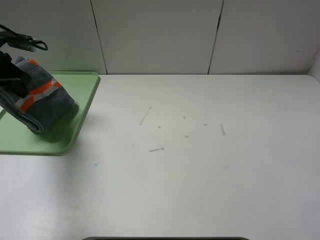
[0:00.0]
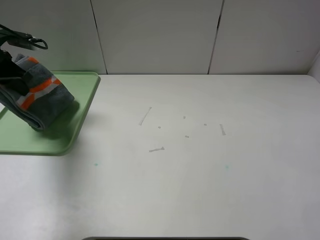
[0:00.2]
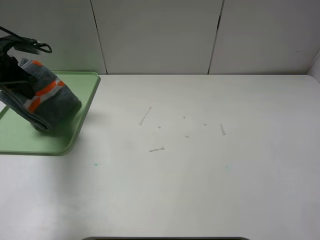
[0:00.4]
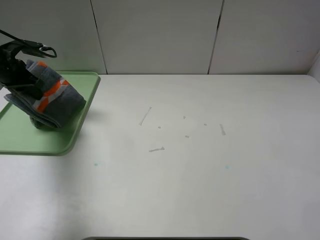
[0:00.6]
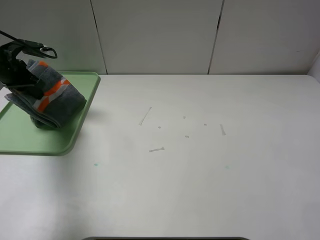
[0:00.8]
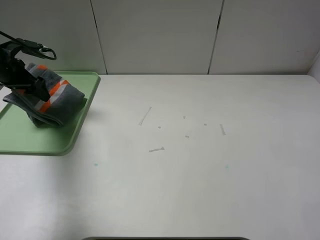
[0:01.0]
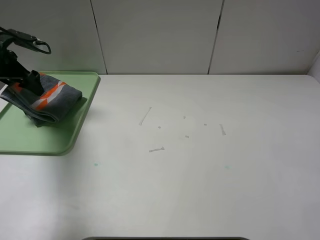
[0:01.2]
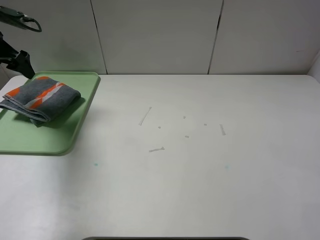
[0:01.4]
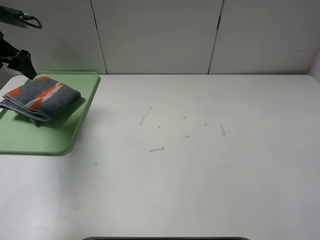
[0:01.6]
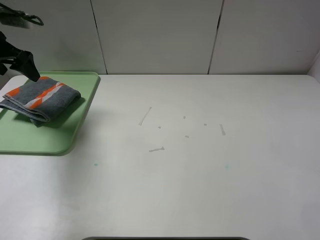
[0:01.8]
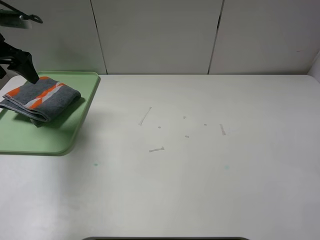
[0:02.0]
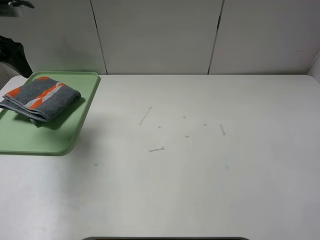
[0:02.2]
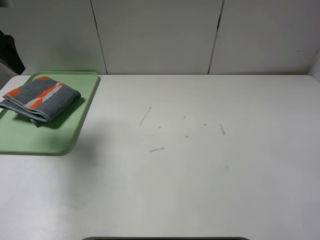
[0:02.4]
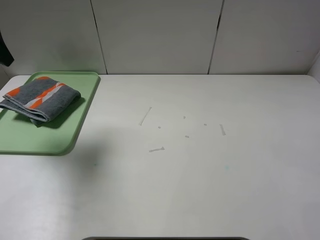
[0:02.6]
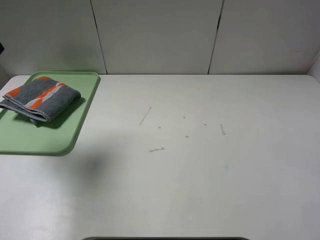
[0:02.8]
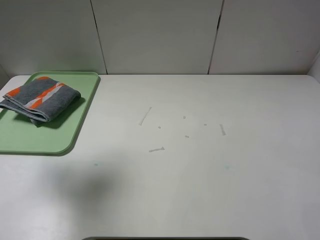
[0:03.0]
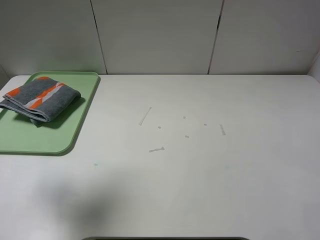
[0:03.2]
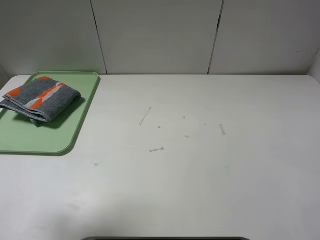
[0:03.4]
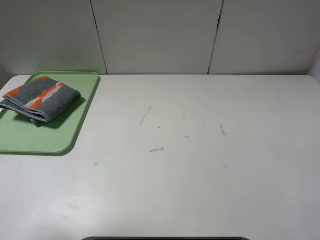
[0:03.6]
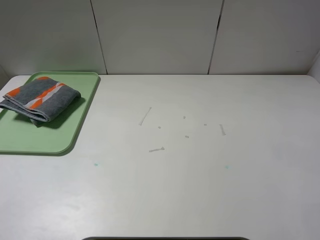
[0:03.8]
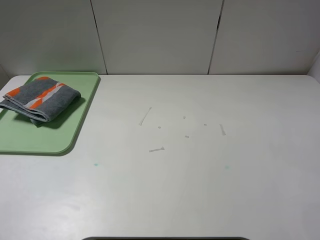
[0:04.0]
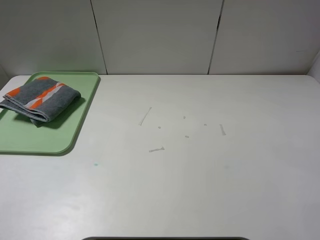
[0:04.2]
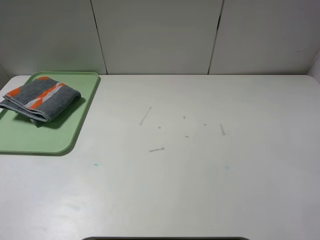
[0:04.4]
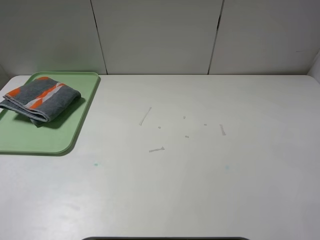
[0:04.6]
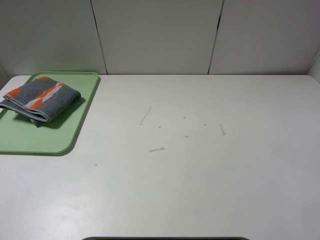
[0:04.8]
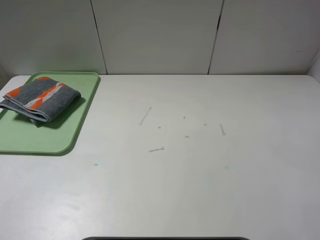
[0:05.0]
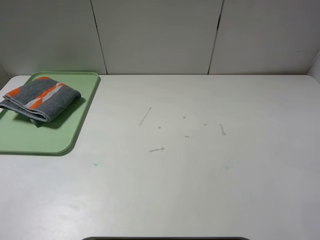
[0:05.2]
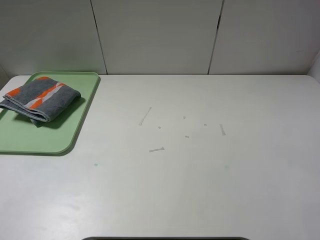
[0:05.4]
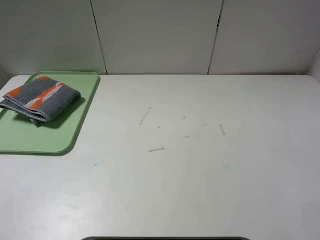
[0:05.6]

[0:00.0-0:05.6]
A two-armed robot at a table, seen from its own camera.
0:00.0 to 0:01.4: The left gripper opens up.
0:01.4 to 0:02.8: The left gripper goes about 15 cm upward and backward.
0:02.8 to 0:04.2: The left gripper is displaced backward by some 30 cm.
